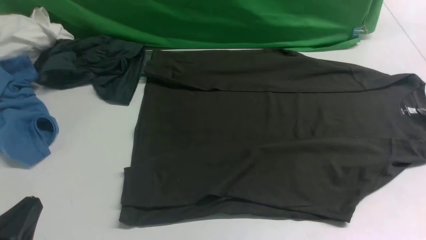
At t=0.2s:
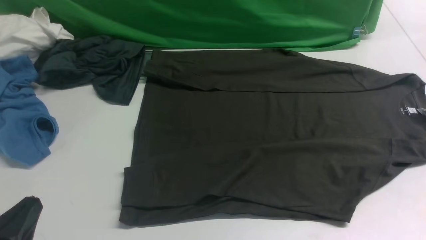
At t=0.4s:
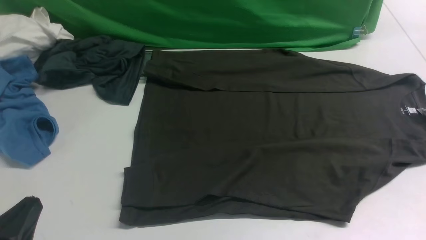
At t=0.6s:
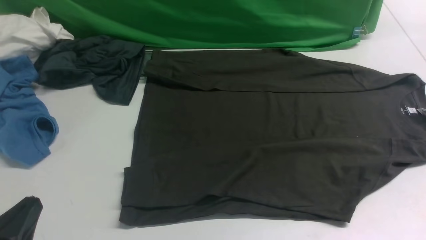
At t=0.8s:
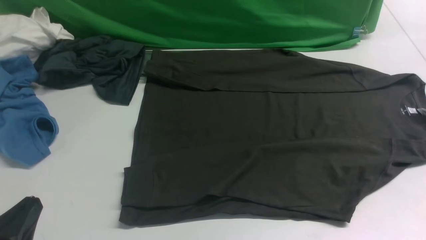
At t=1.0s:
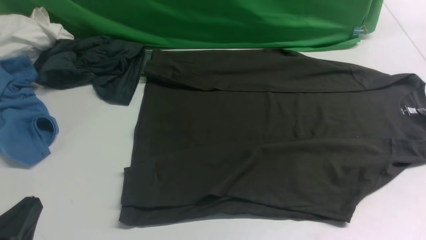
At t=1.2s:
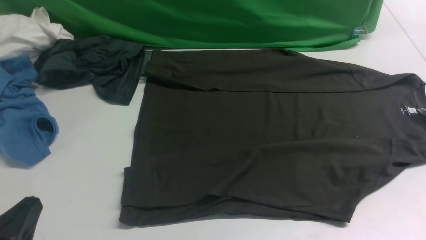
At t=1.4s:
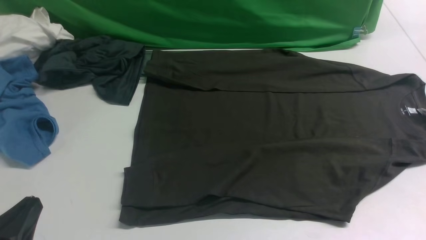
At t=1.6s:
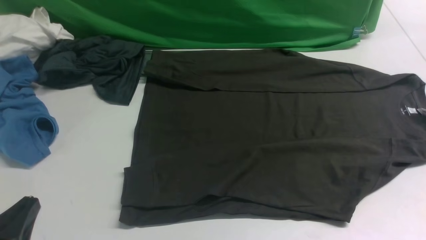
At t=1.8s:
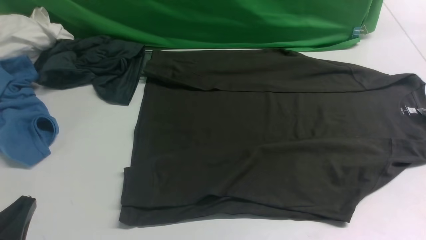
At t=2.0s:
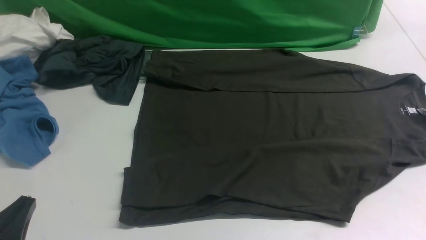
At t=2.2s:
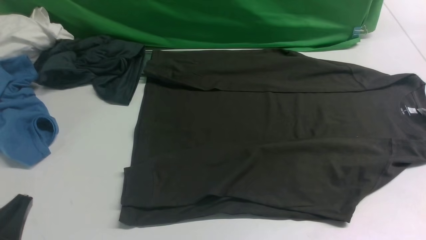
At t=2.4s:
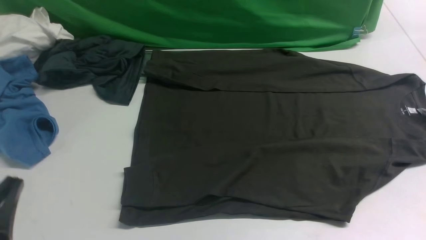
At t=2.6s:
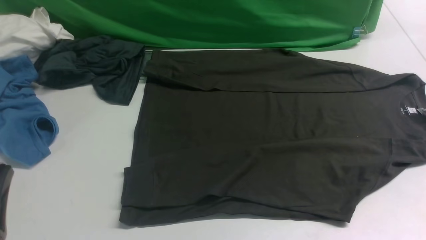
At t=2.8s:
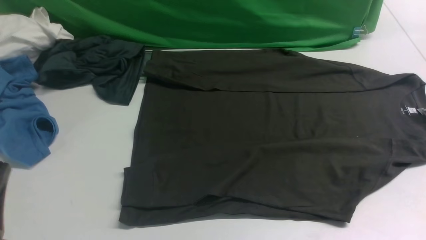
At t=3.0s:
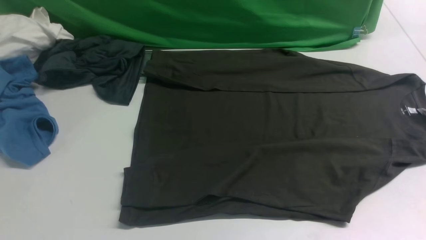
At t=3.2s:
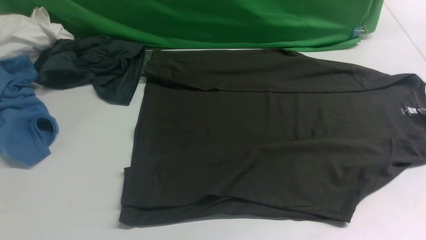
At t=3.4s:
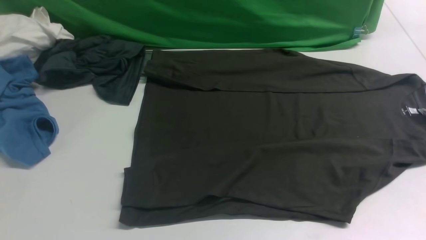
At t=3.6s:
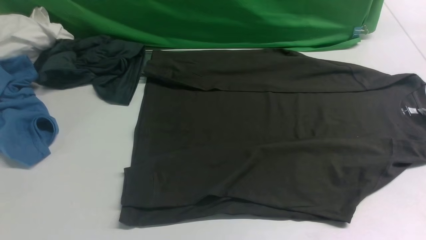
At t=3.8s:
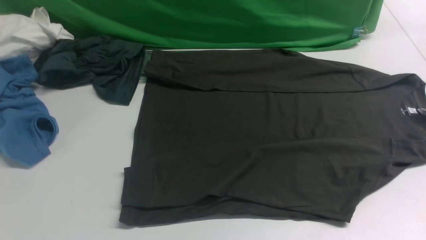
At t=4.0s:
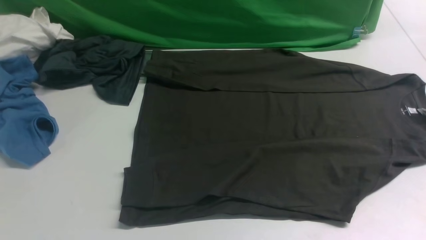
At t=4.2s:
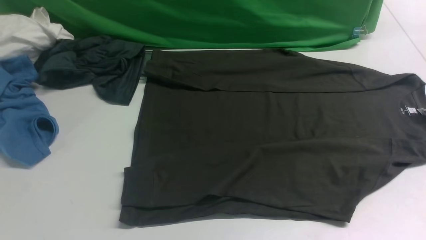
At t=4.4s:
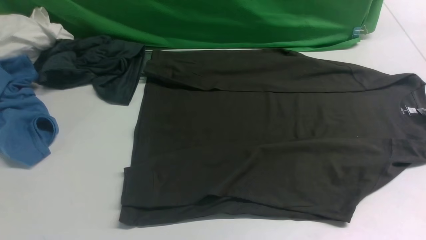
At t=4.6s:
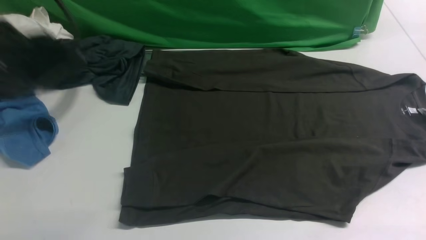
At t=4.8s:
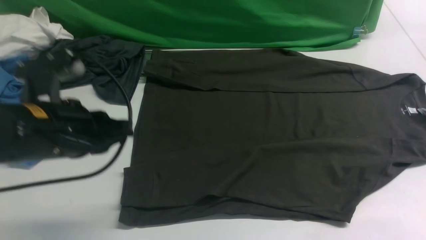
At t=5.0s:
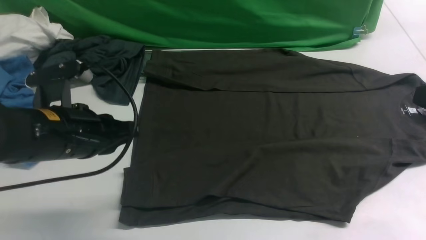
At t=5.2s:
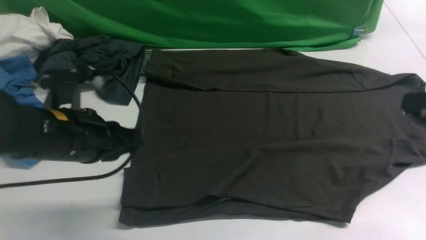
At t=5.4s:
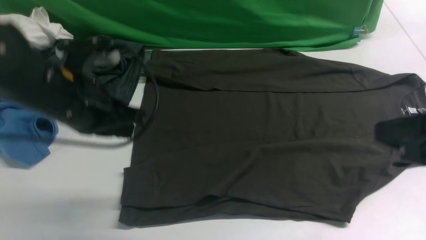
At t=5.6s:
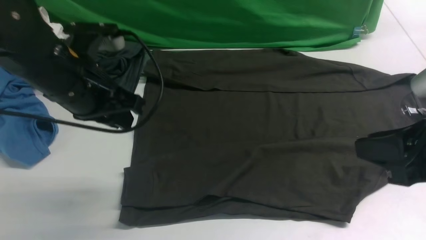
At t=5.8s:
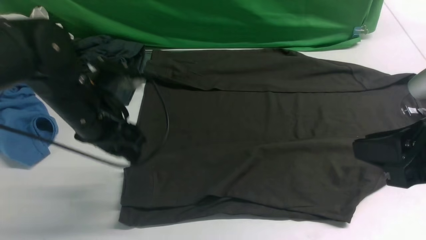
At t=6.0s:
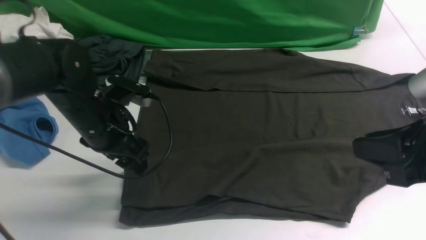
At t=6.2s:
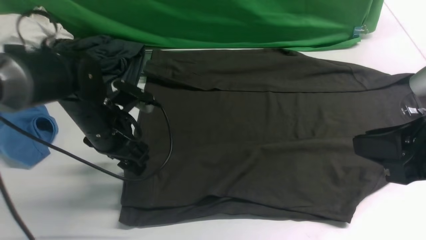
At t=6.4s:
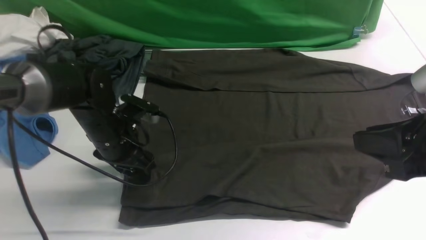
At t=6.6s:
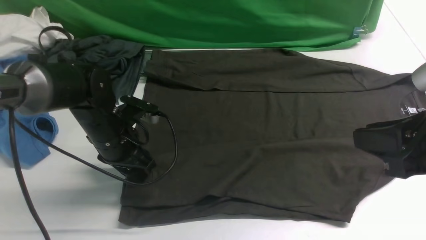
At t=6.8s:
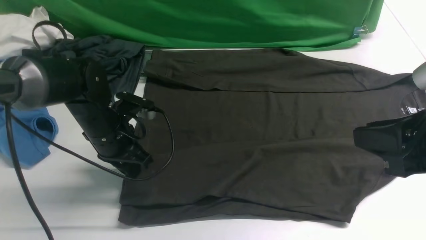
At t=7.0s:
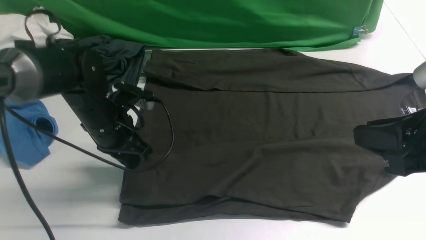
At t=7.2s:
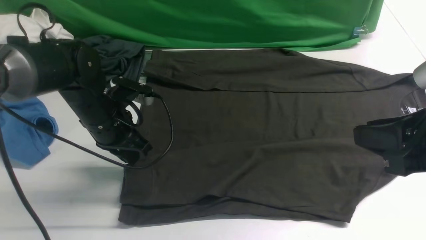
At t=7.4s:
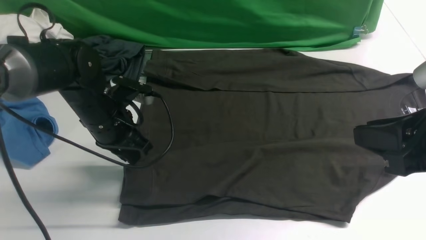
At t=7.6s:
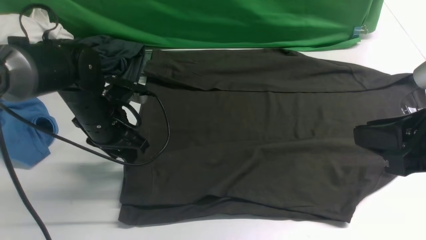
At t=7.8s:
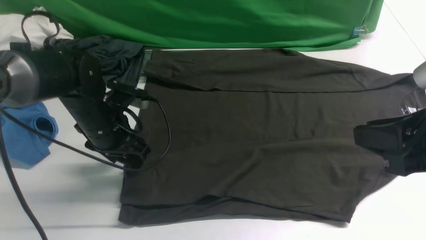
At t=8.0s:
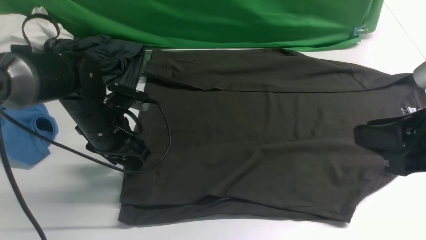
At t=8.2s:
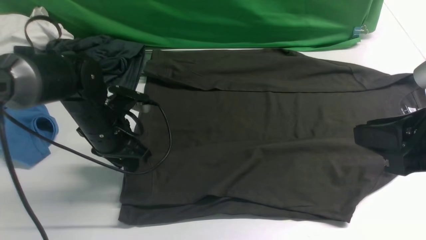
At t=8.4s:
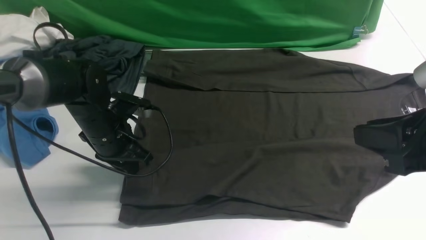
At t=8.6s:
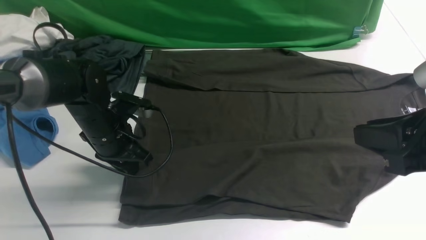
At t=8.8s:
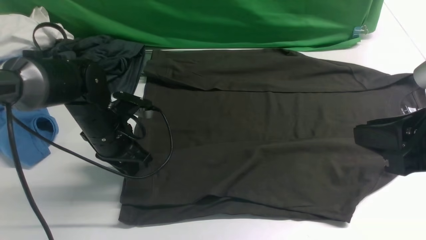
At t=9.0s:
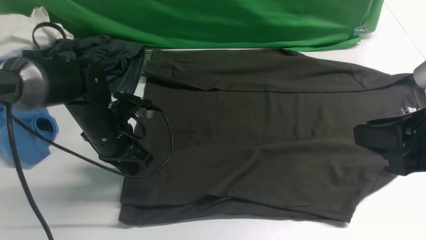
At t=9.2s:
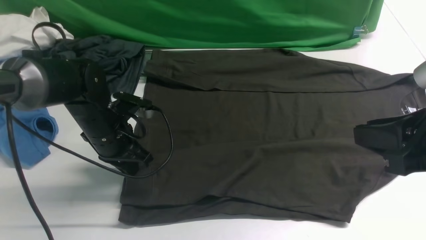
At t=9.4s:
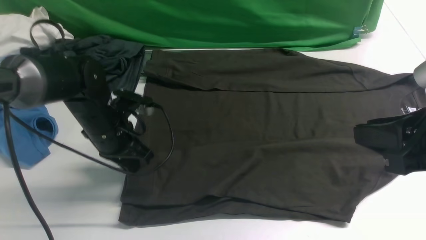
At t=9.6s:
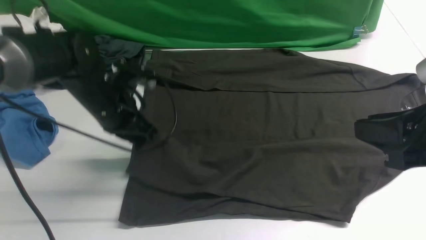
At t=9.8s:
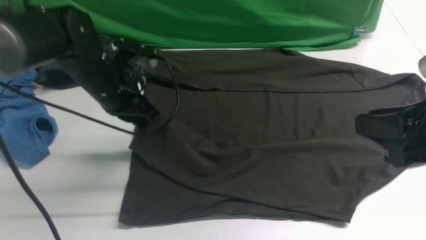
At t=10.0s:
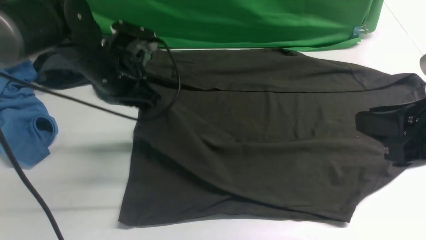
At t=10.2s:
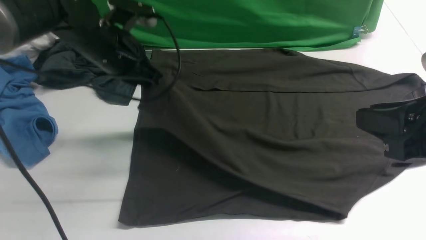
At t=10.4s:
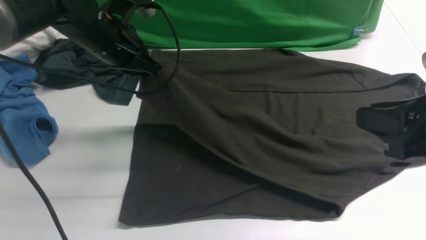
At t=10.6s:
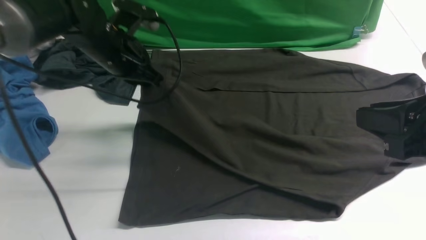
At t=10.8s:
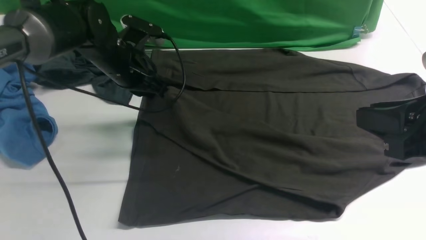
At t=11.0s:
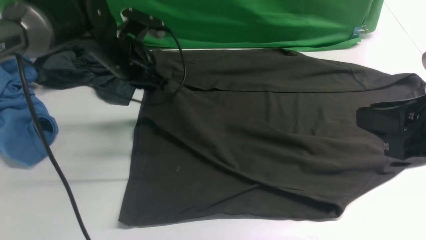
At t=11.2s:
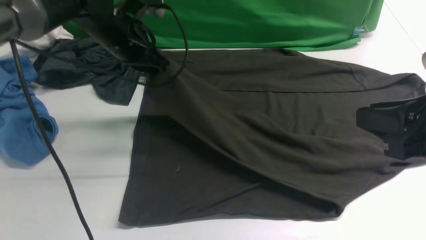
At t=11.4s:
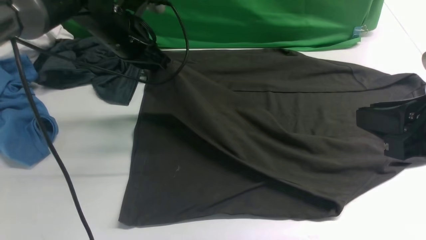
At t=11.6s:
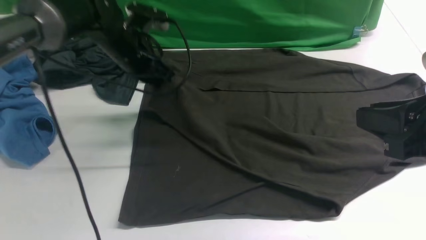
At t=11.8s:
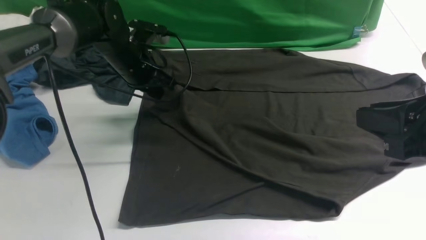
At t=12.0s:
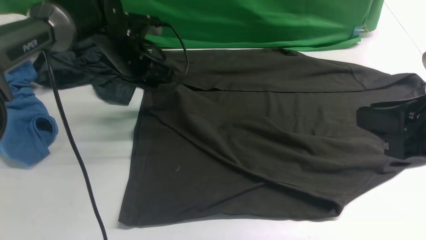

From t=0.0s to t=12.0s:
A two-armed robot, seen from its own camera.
Step, from t=0.0s to t=9.4s: use the left arm to clamp the cuff closest to it.
From t=1.6s to t=3.0s: The left gripper is displaced upward by about 5 cm.
From t=4.4s to t=6.0s: The left gripper is displaced downward and forward by roughly 25 cm, and opens up. The right gripper shifts about 15 cm downward and to the left.
From t=6.0s to t=7.6s: The grippers move only a little.
From t=7.6s to t=9.0s: The left gripper closes up.
From t=9.0s to t=10.4s: The left gripper goes approximately 15 cm upward and forward.
From t=10.4s to t=12.0s: The left gripper heads forward, covering some 5 cm.

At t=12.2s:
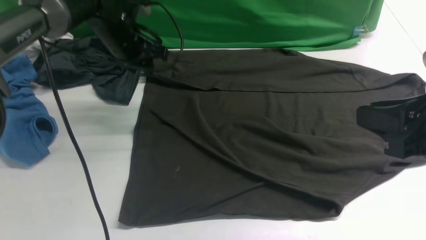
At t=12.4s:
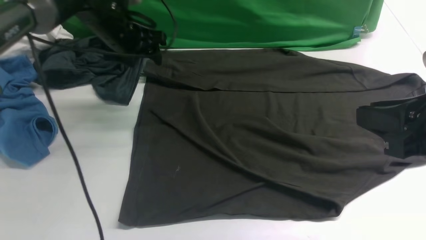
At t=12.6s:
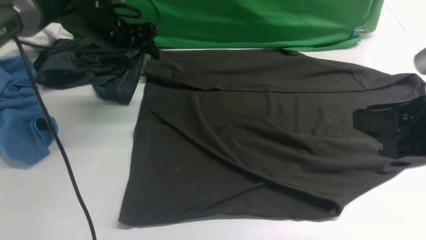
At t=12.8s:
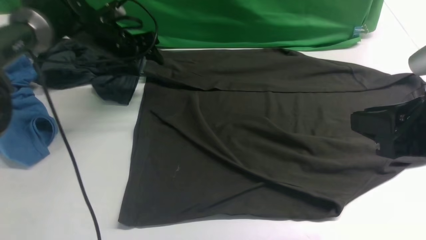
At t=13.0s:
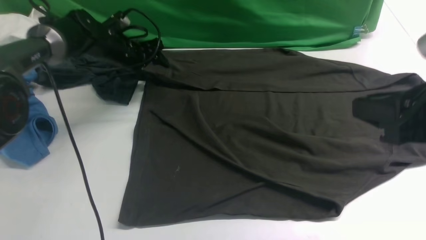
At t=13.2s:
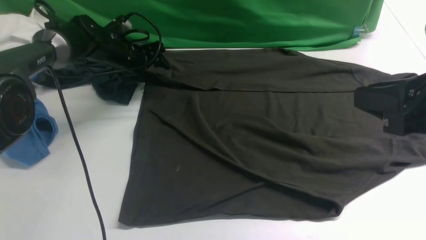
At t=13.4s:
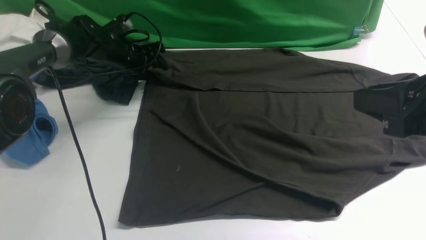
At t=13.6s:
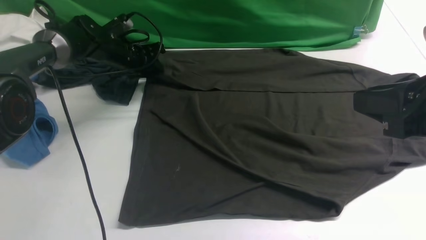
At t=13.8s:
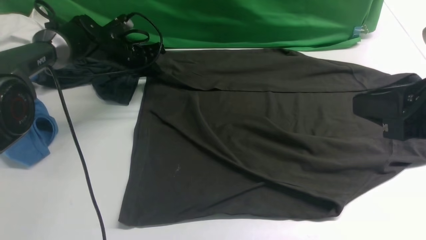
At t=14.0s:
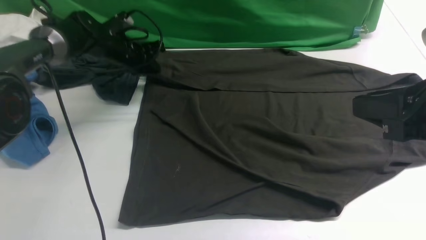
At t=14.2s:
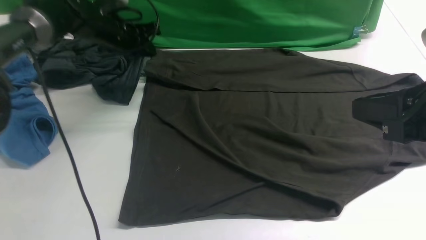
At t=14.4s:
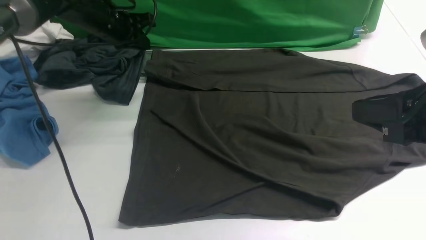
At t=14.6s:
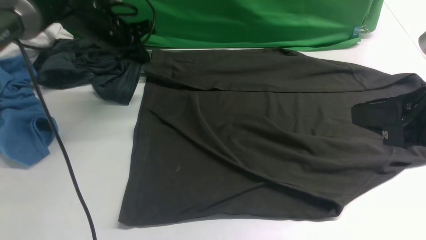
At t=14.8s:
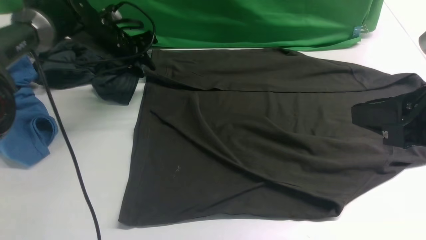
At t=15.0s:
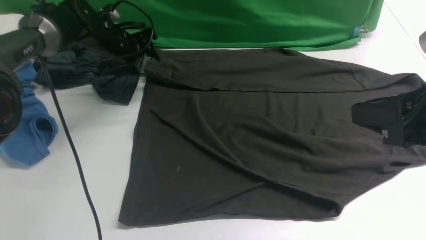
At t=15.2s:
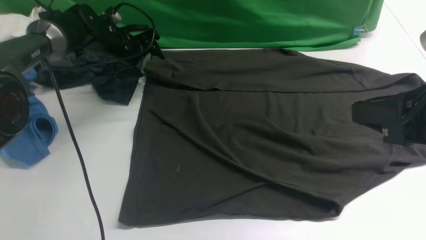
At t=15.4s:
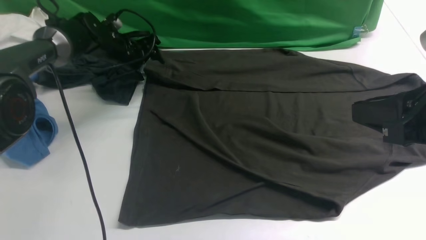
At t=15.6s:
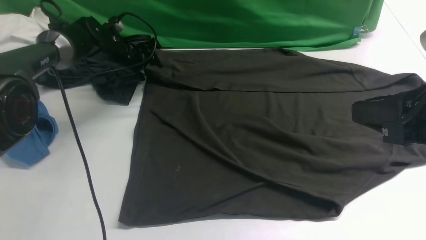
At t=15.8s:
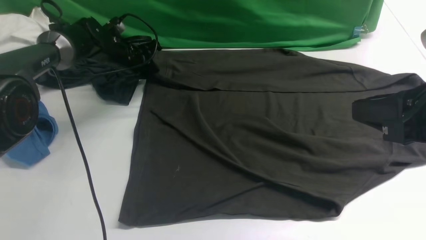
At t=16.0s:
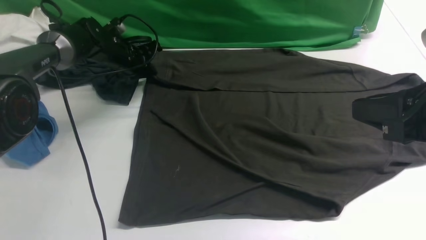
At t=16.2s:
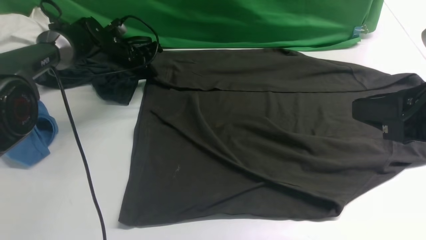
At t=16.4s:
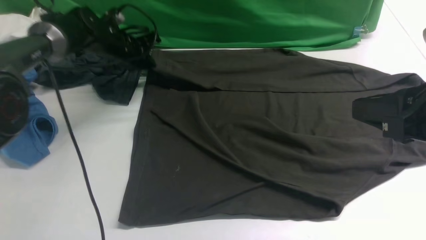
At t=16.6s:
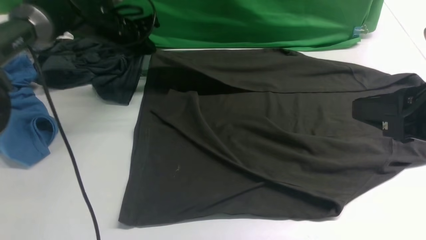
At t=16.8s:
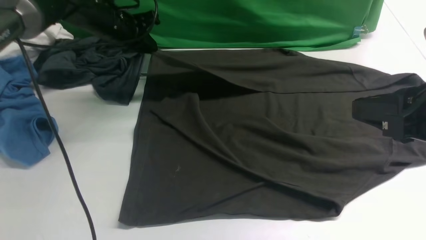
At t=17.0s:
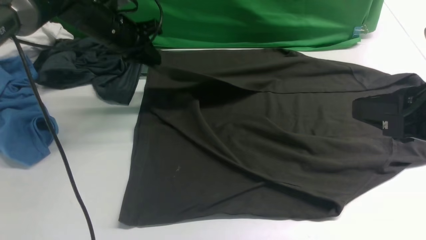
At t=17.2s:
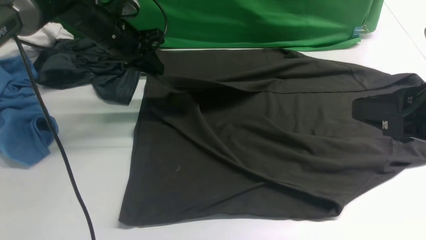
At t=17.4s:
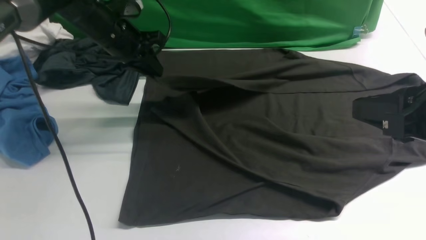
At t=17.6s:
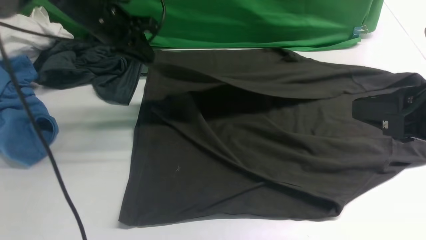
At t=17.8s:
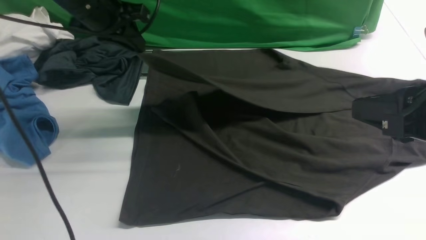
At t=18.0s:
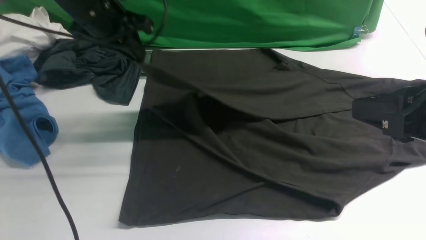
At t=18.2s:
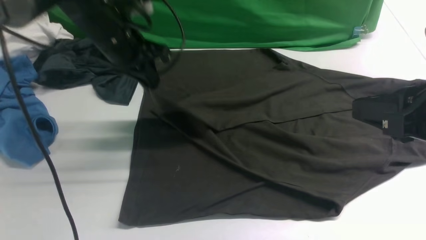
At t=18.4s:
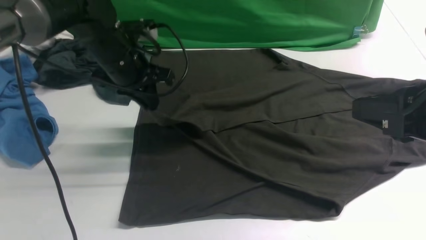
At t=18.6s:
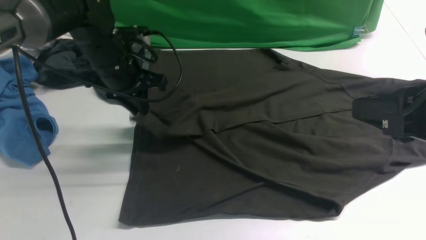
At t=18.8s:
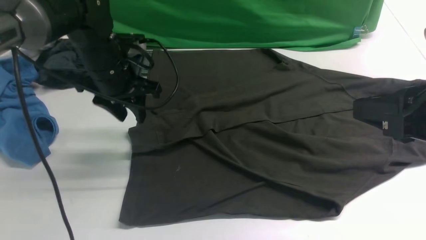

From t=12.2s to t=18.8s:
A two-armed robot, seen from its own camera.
Step, from t=12.6s to t=16.2s: use the left arm to clamp the cuff farthest from it.
From t=12.2s to t=13.8s: The left gripper goes approximately 10 cm downward and forward, and closes its fingers.
From t=13.8s to t=15.4s: The left gripper opens up.
From t=15.4s to t=17.2s: The left gripper shifts some 10 cm upward and backward, and closes.
From t=17.2s to t=18.8s: The left gripper shifts approximately 10 cm backward, and opens its fingers.
